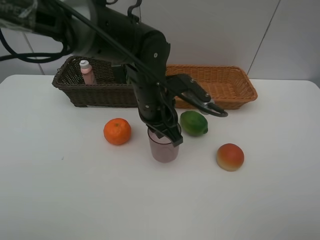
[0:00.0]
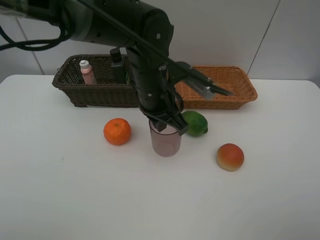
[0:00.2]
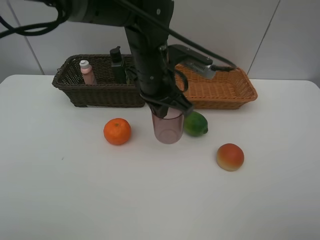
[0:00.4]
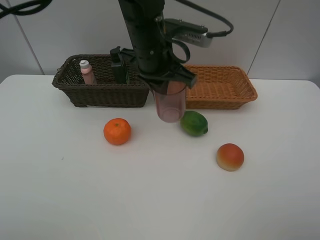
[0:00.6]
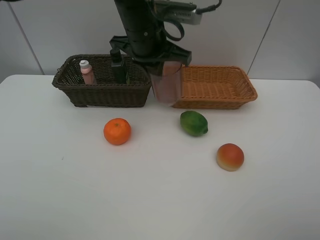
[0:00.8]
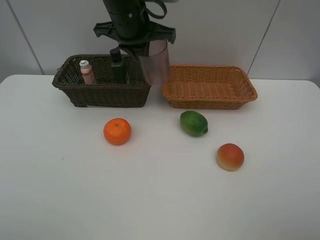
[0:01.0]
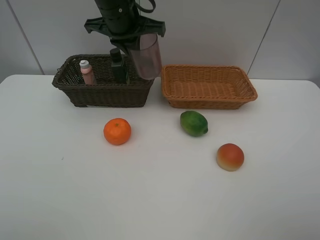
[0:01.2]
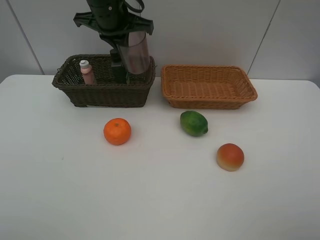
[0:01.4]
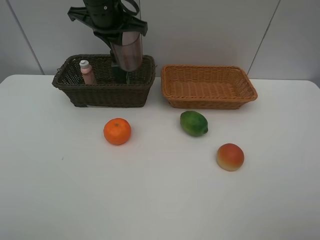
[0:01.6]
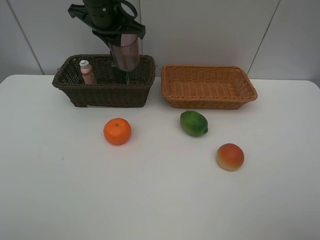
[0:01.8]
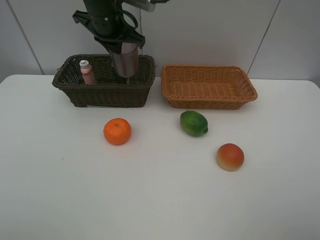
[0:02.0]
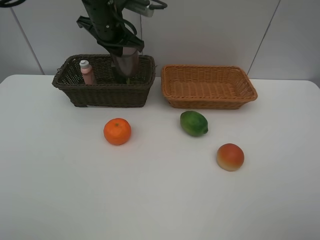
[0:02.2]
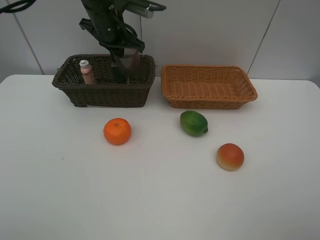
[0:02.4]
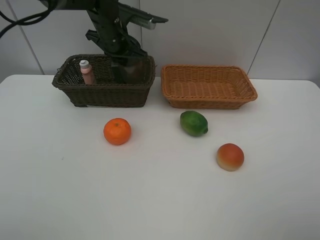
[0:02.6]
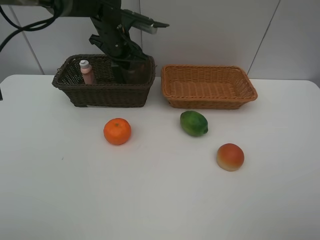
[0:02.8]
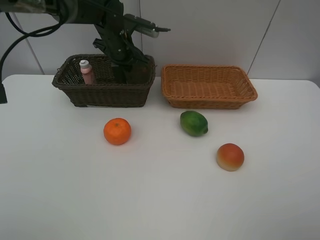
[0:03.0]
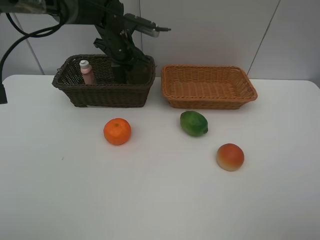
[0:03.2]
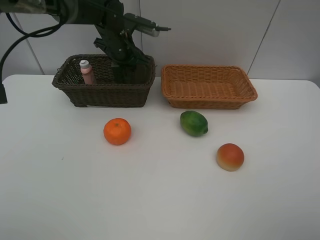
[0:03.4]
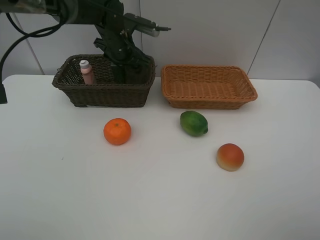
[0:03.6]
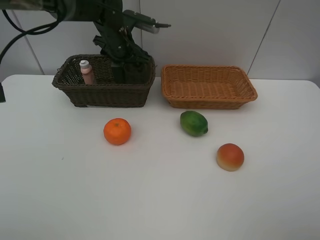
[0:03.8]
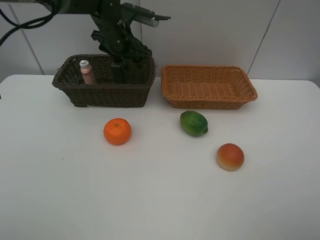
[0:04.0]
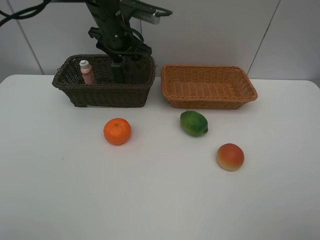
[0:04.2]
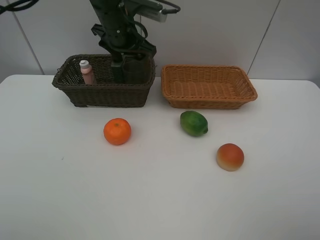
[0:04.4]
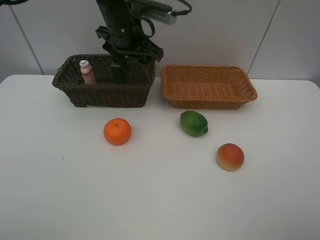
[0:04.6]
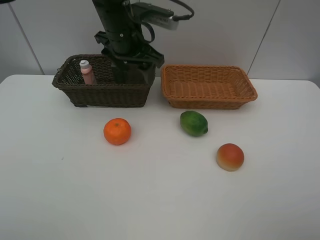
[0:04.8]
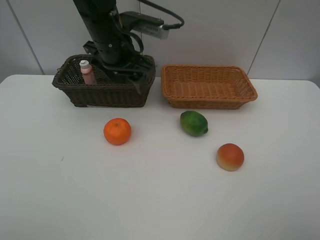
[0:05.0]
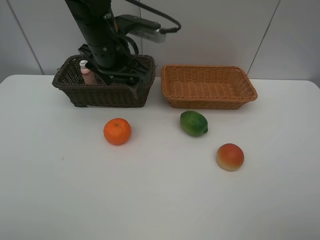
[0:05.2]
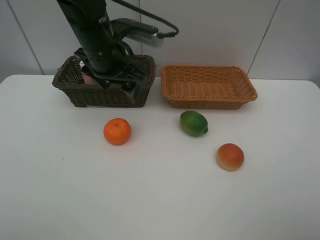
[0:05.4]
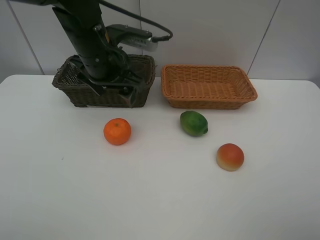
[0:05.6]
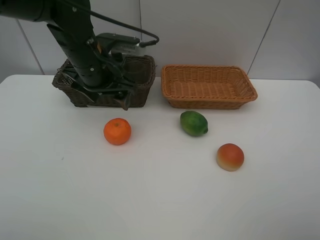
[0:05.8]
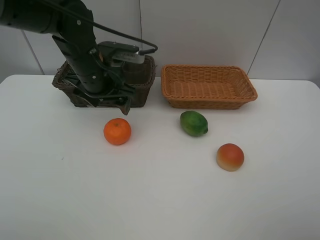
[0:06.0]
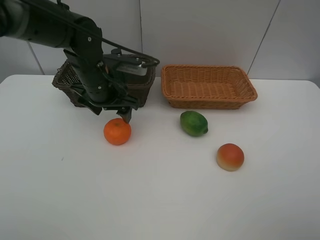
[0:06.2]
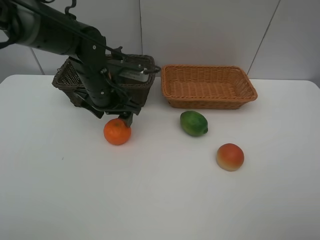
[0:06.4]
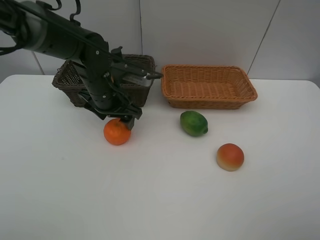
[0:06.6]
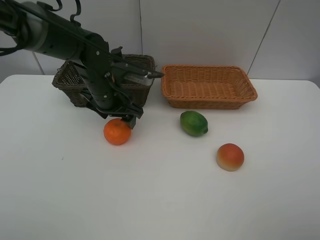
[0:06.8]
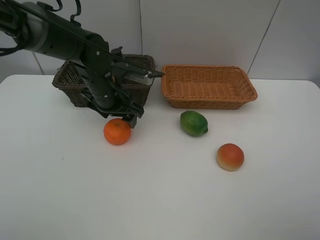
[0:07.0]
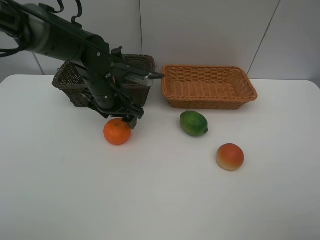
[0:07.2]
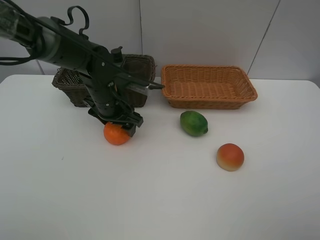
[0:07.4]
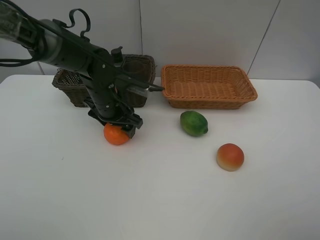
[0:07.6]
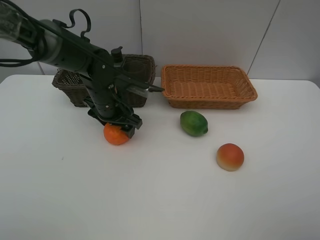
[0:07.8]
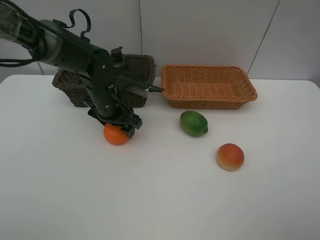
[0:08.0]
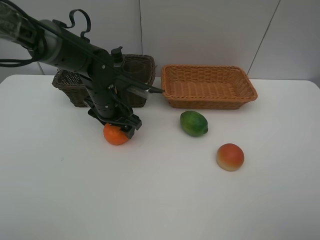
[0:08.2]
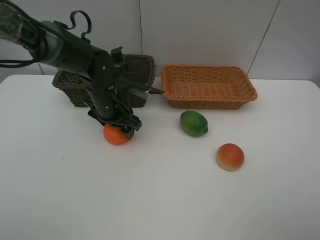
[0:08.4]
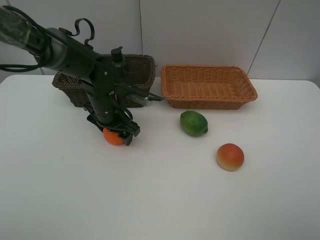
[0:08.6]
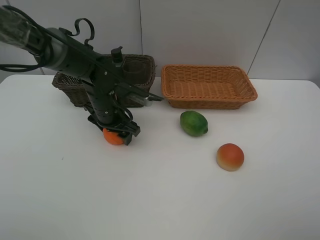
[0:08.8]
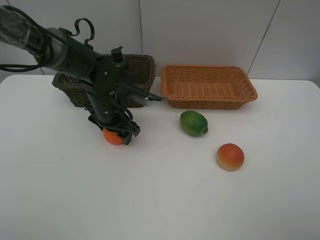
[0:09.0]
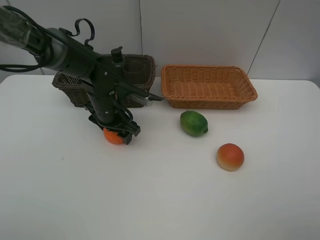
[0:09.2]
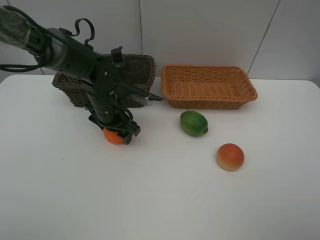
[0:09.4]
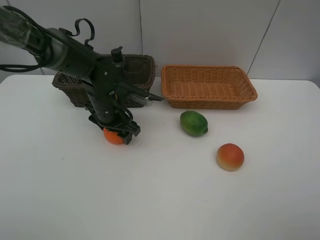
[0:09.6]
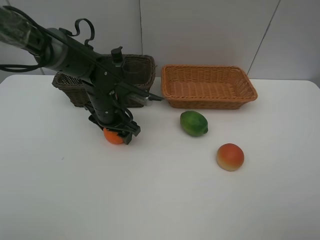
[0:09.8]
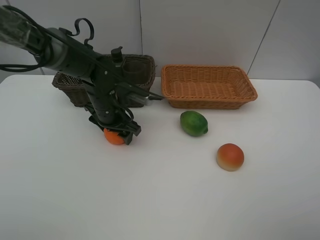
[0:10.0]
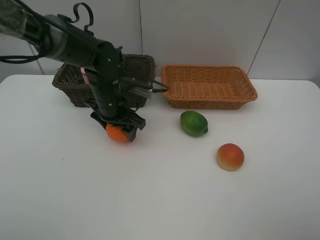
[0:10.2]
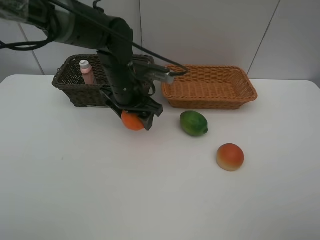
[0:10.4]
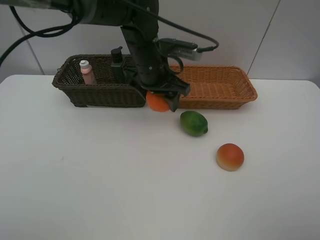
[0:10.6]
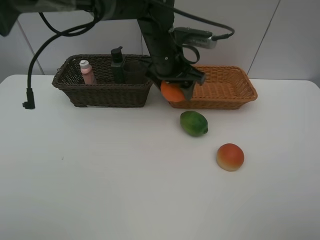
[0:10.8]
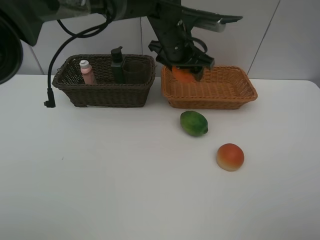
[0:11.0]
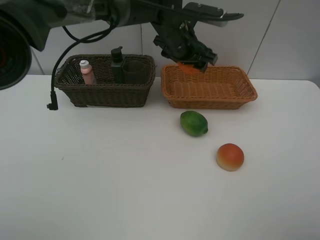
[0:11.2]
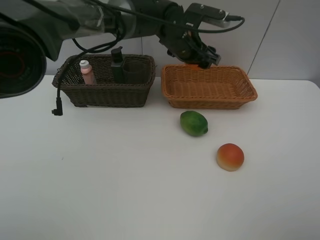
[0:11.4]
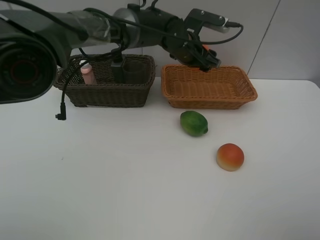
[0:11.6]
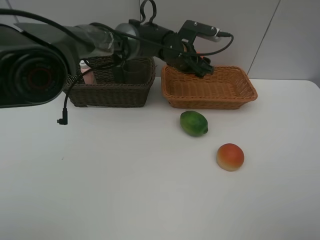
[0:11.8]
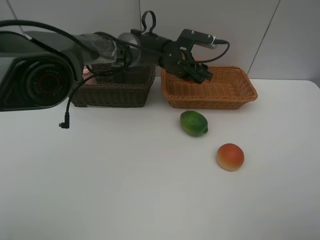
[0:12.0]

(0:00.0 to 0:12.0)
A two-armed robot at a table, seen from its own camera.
Task of the whole recording: place multiple objects separately in different baskets.
0:00.0 - 0:01.6: The left gripper shifts about 20 cm forward, upward and to the left.
0:01.6 - 0:03.0: The left gripper goes some 10 cm downward and forward.
0:03.0 - 0:04.4: The left gripper travels upward by approximately 5 cm, and opens up.
0:04.4 - 0:06.0: The left gripper travels backward and downward by roughly 10 cm.
0:06.0 - 0:07.6: The left gripper is displaced downward by about 10 cm.
0:07.6 - 0:09.0: The grippers move only a little.
0:09.0 - 0:10.4: The left gripper moves upward and to the right, roughly 10 cm.
0:10.4 - 0:12.0: The left gripper goes roughly 15 cm forward and to the right.

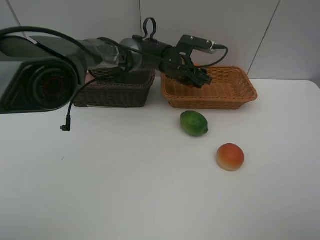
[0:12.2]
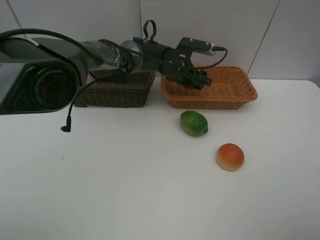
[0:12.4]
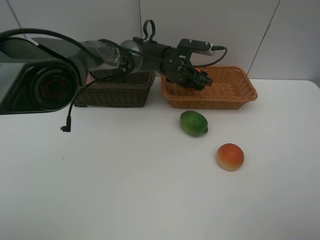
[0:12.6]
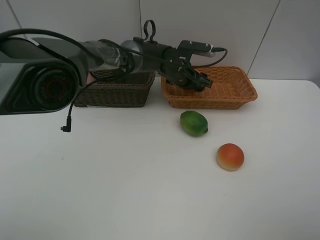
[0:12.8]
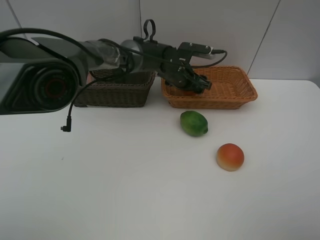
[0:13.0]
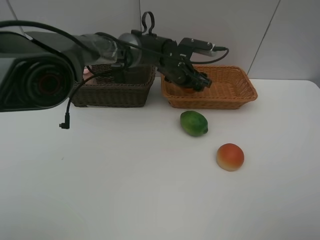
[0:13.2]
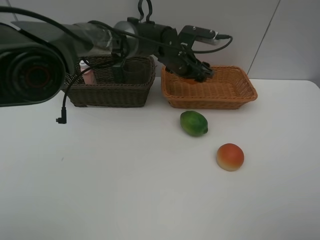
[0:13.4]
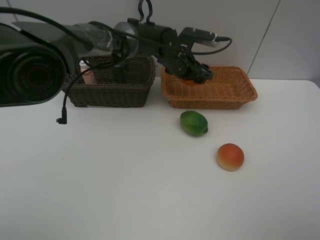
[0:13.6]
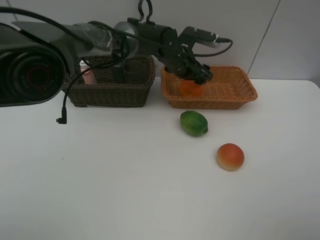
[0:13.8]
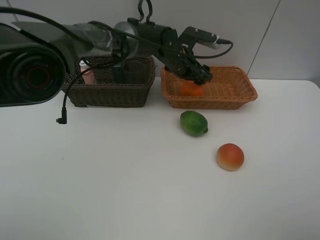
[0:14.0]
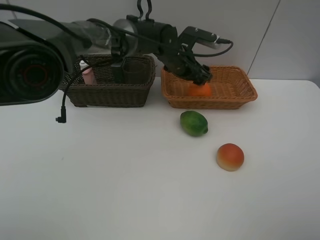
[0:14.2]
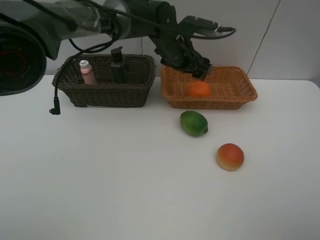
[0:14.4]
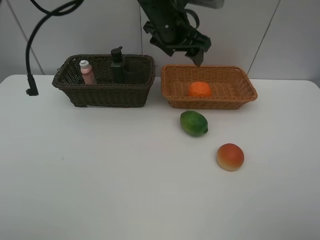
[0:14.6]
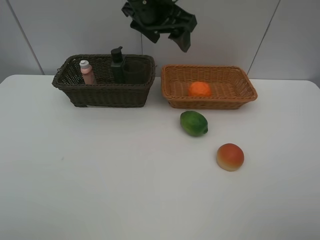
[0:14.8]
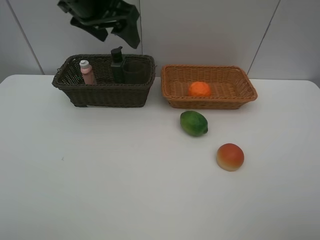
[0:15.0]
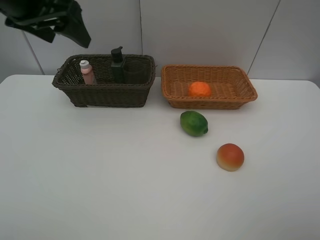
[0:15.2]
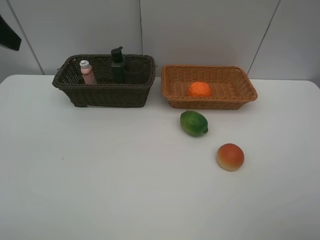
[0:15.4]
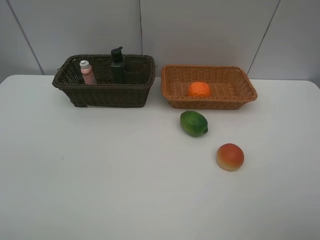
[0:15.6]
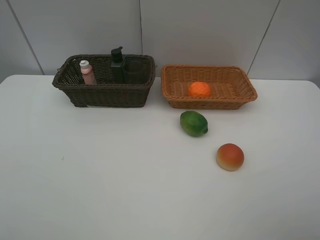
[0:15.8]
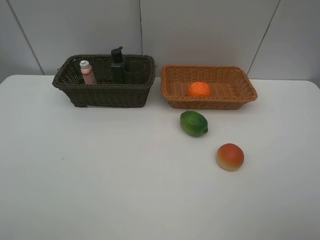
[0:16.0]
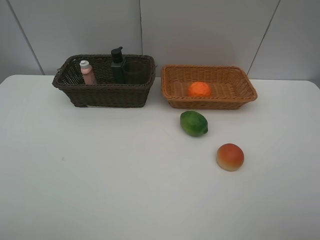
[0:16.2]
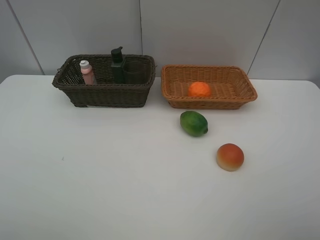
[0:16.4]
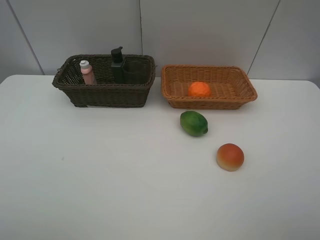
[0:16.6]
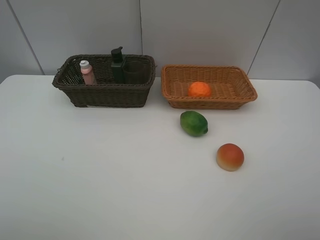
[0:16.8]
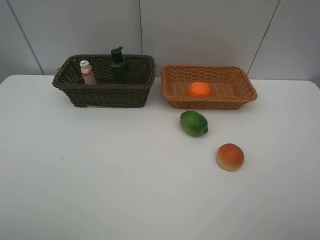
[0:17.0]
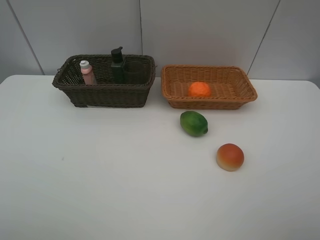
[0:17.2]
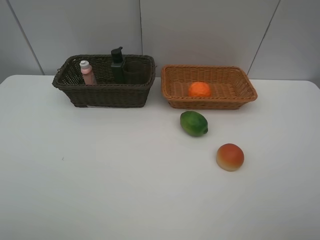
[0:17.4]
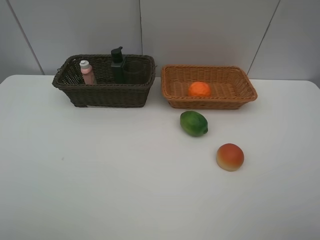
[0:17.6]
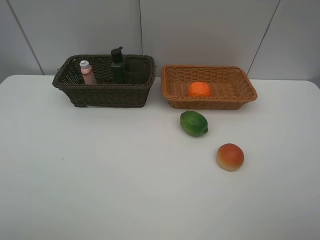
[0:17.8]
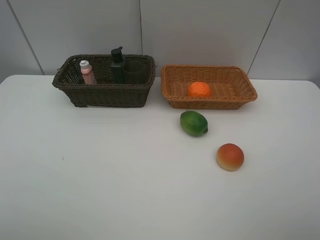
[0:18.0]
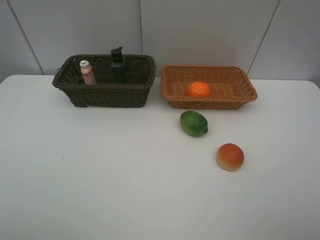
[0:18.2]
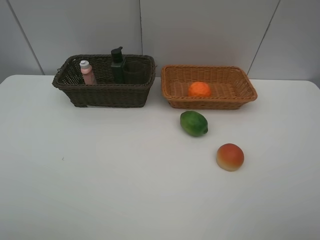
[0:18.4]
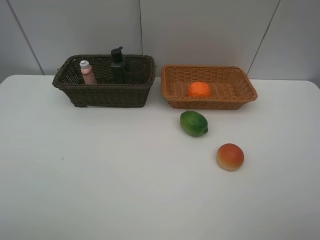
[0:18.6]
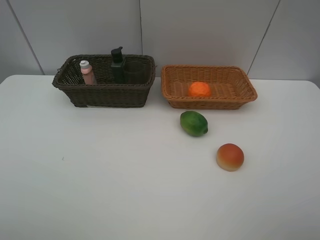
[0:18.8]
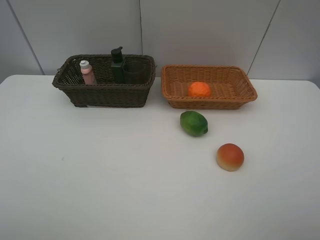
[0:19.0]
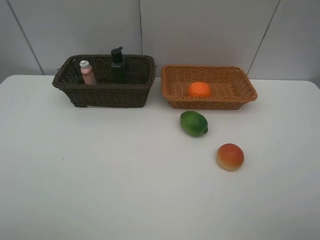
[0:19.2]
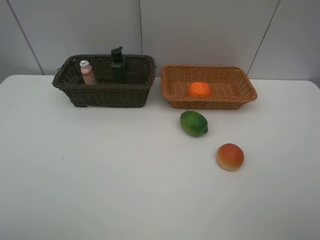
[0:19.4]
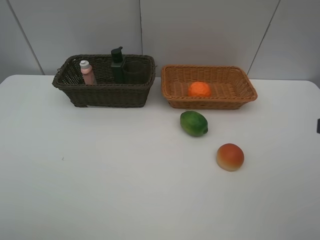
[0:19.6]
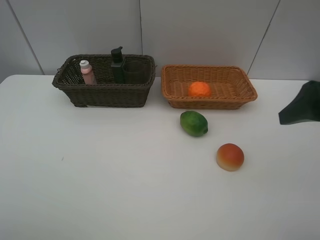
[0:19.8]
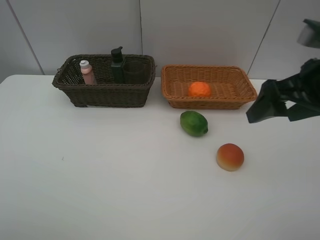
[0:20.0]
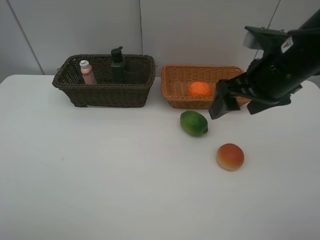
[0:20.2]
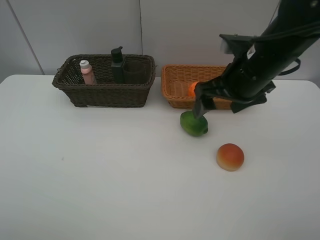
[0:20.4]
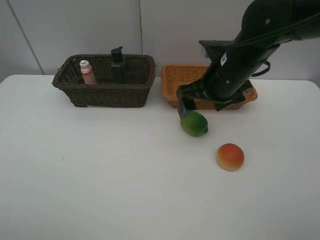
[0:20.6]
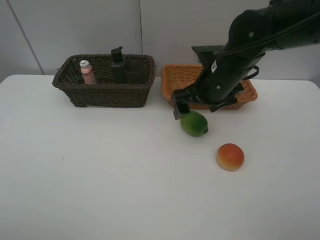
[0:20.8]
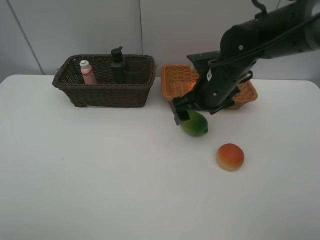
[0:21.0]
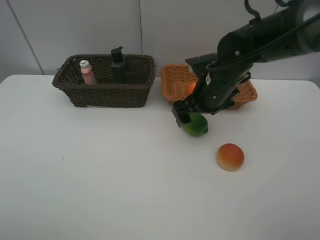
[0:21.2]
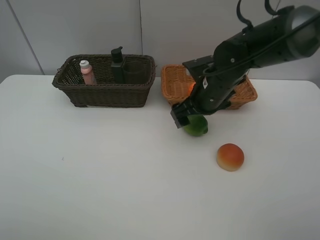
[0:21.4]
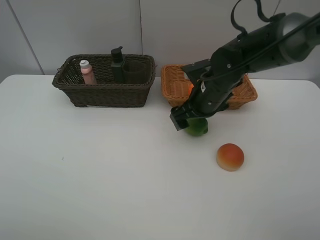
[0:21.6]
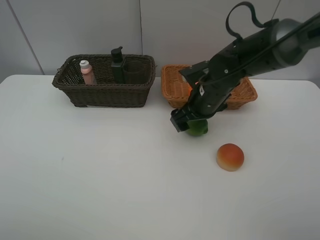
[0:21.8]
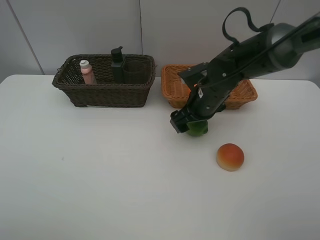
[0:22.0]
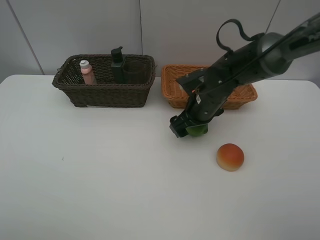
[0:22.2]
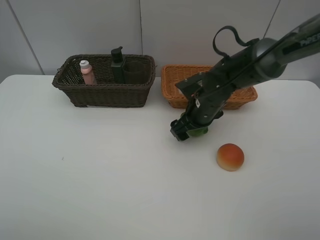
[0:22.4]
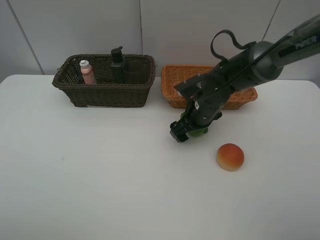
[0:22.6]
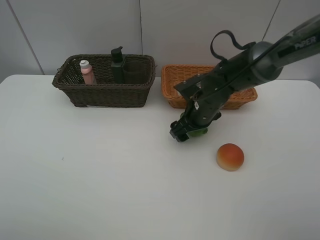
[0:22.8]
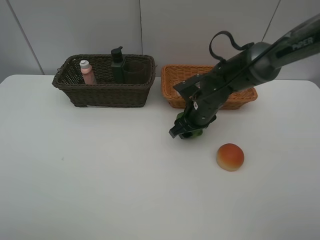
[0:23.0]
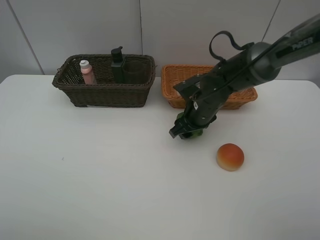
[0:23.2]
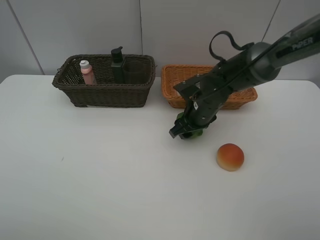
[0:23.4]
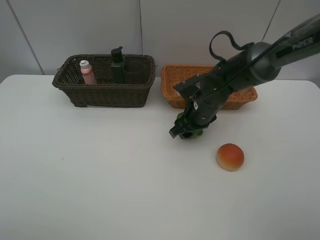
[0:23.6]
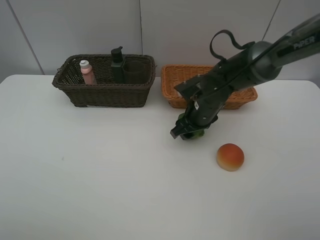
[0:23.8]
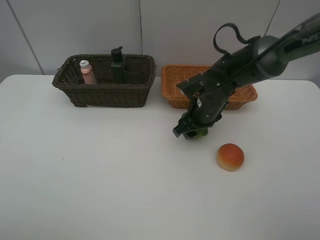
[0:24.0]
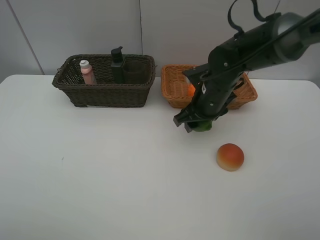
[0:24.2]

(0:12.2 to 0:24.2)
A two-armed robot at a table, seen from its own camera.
Task of the whole recording: place multiple objects separately in different baskets.
0:12.2 - 0:13.8: There are only small adjustments of the grippers.
0:13.8 - 0:15.2: The left gripper travels to the left, upward and backward by about 35 cm.
0:15.2 - 0:16.6: The left gripper travels backward by about 25 cm.
0:18.2 - 0:19.8: The right gripper moves forward, approximately 15 cm.
0:19.8 - 0:21.2: The right gripper travels to the left, forward and downward by approximately 25 cm.
0:21.2 - 0:22.6: The right gripper travels downward by about 5 cm.
0:22.6 - 0:24.2: The right gripper is displaced upward by some 5 cm, and closes.
